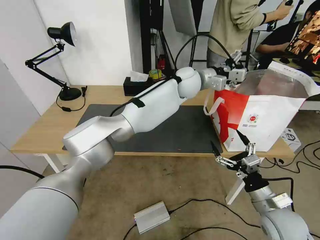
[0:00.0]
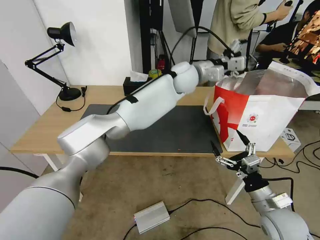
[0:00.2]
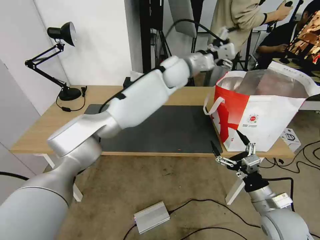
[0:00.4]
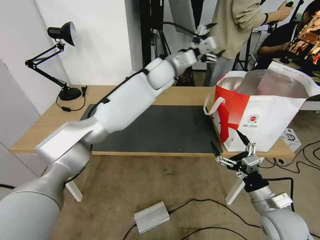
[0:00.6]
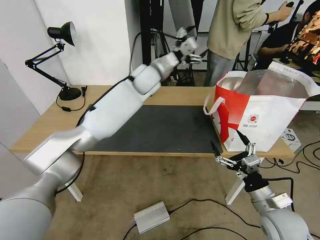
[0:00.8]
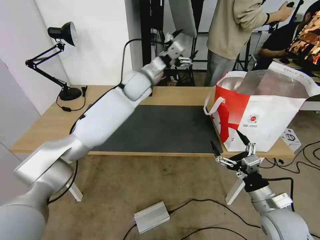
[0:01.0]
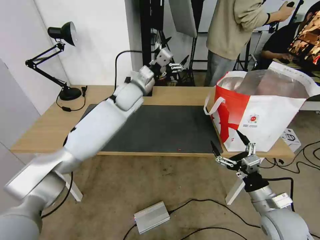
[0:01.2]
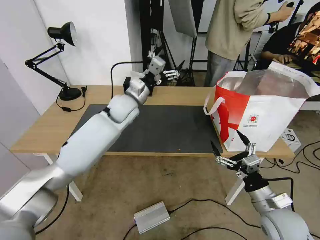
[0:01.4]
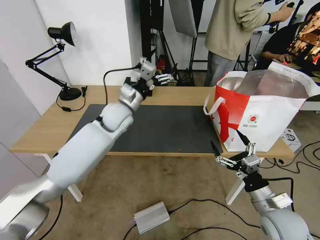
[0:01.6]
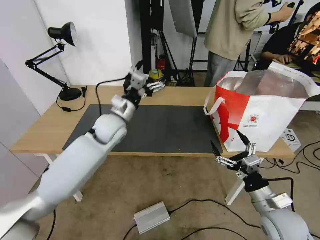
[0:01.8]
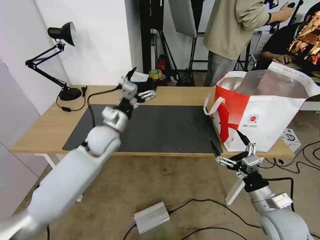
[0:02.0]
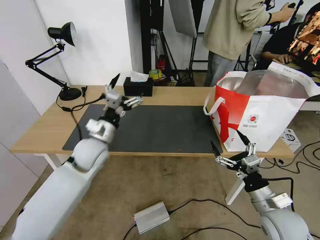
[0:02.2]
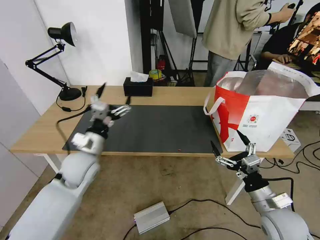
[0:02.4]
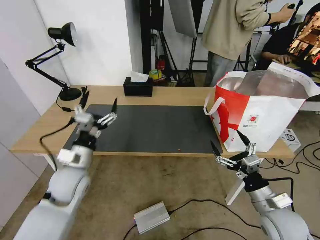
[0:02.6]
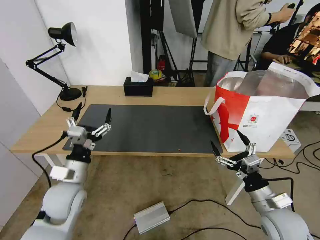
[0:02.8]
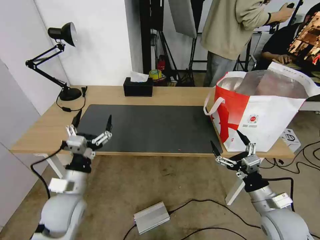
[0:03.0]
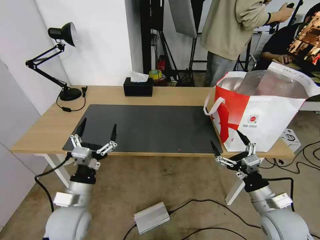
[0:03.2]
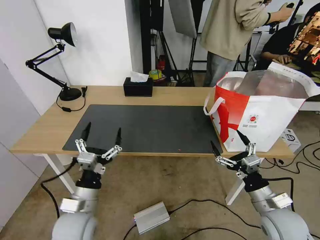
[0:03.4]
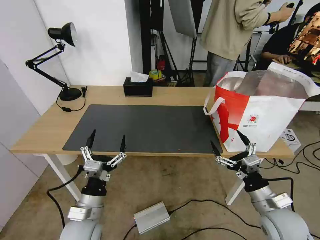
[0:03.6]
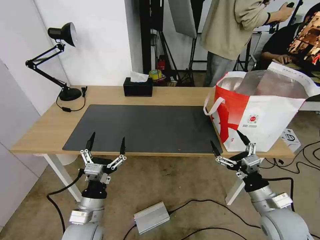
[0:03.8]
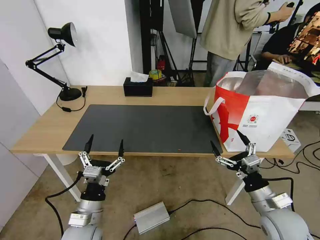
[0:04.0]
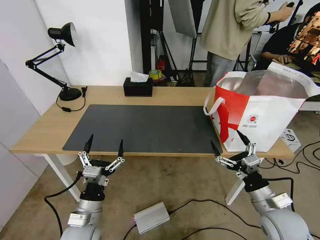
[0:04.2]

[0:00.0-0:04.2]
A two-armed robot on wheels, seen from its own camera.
Task of the whole recording: Pick up the trash from the table and place it into the takeout bag.
0:00.0 to 0:01.4: The left gripper heads to the left, covering about 20 cm.
0:01.4 to 0:02.8: The left gripper is displaced backward, to the left and downward by some 30 cm.
0:02.8 to 0:04.2: The left gripper is displaced backward and downward by some 10 cm.
